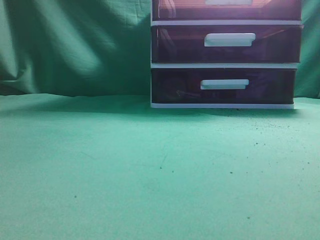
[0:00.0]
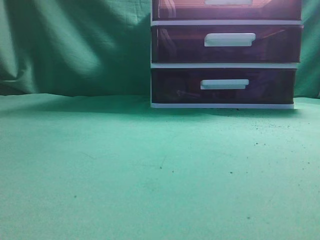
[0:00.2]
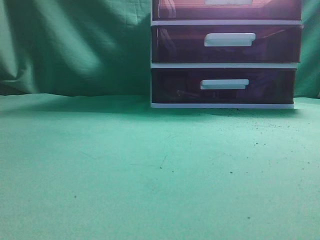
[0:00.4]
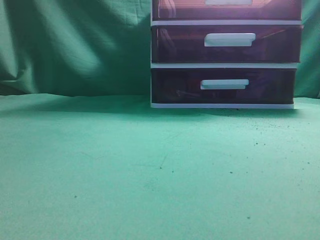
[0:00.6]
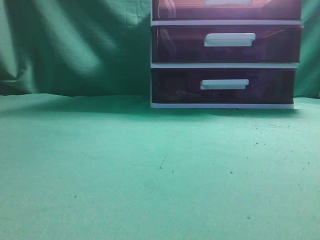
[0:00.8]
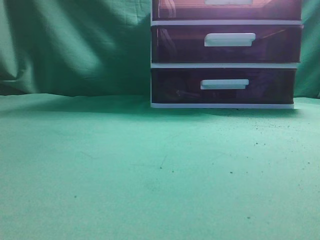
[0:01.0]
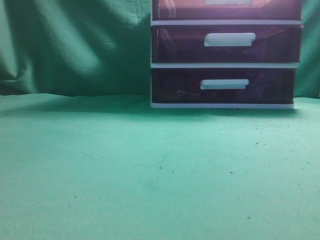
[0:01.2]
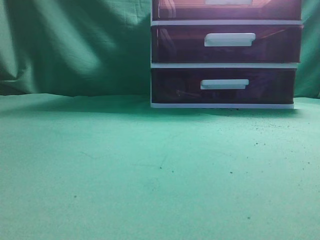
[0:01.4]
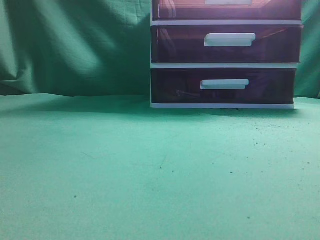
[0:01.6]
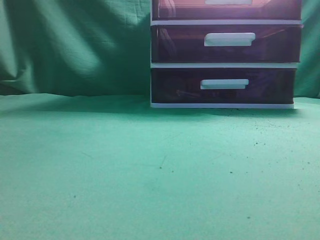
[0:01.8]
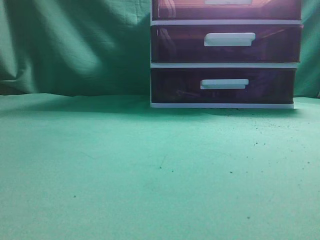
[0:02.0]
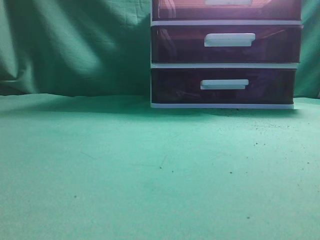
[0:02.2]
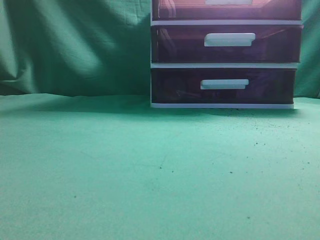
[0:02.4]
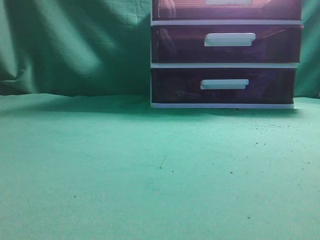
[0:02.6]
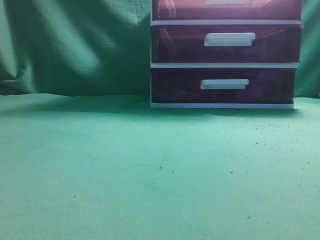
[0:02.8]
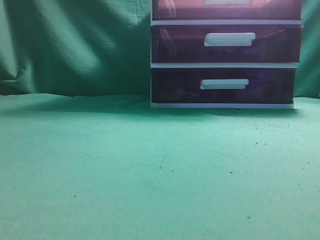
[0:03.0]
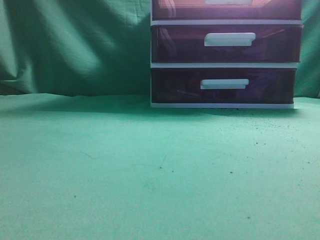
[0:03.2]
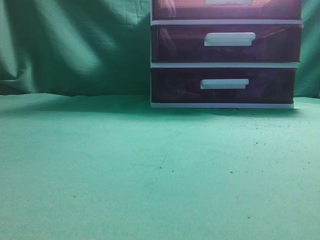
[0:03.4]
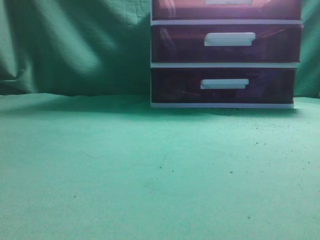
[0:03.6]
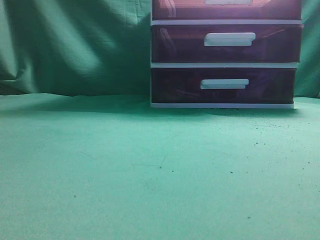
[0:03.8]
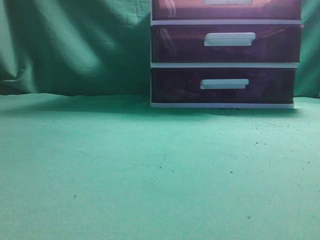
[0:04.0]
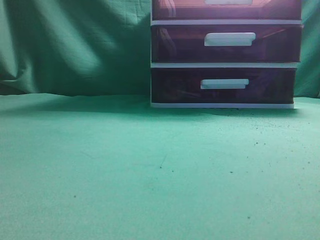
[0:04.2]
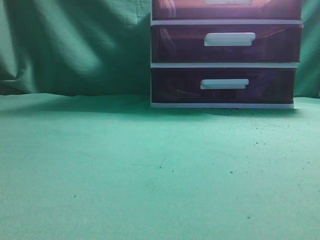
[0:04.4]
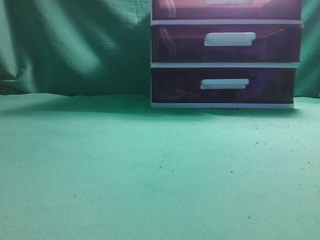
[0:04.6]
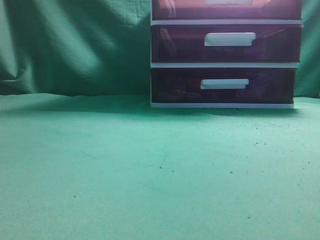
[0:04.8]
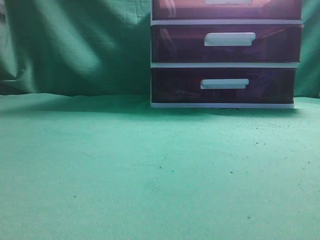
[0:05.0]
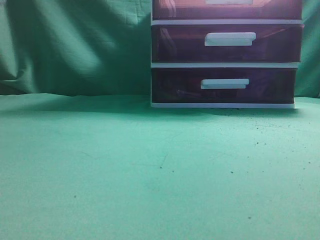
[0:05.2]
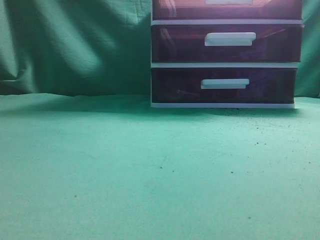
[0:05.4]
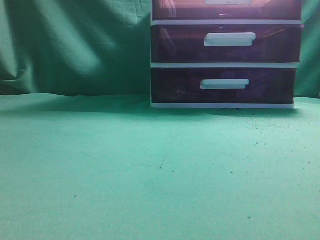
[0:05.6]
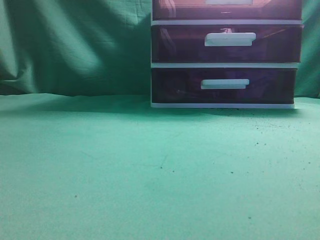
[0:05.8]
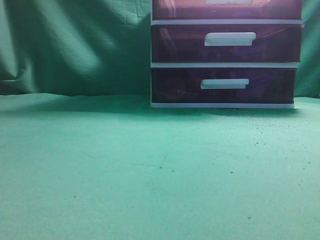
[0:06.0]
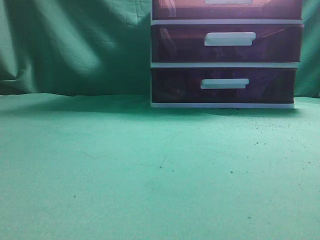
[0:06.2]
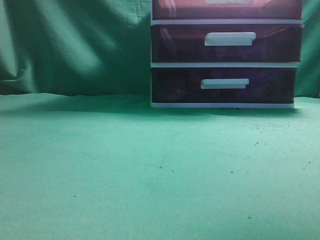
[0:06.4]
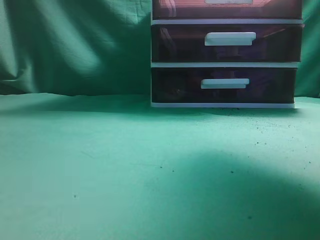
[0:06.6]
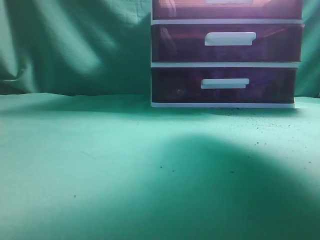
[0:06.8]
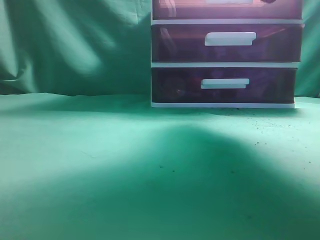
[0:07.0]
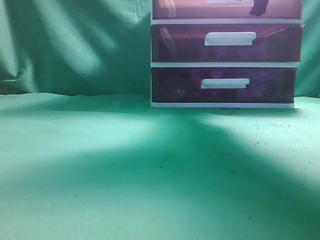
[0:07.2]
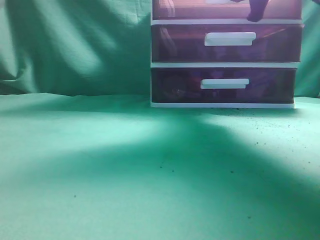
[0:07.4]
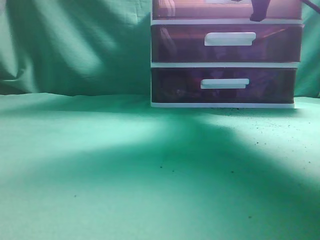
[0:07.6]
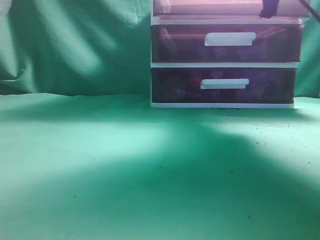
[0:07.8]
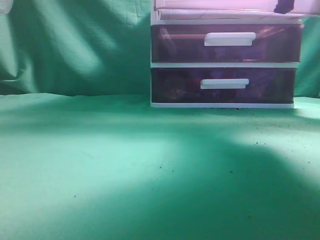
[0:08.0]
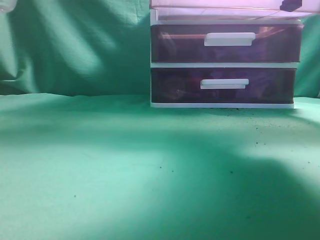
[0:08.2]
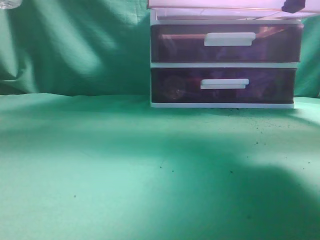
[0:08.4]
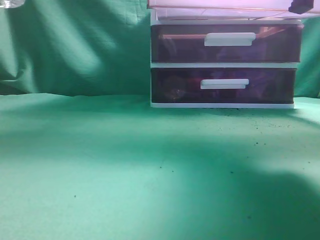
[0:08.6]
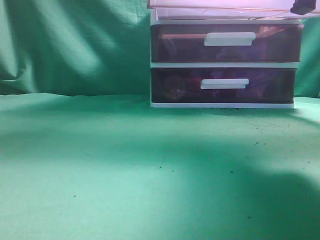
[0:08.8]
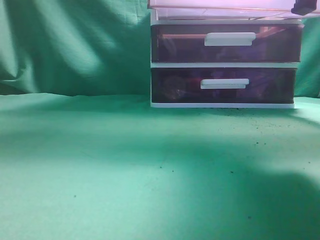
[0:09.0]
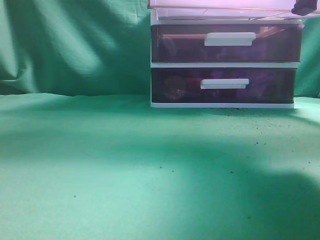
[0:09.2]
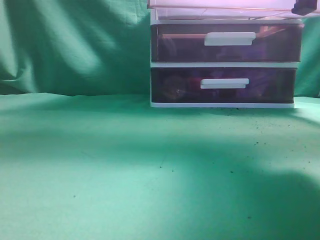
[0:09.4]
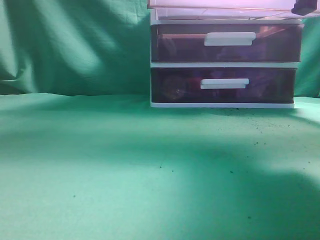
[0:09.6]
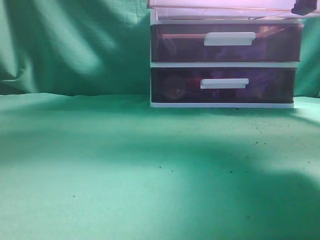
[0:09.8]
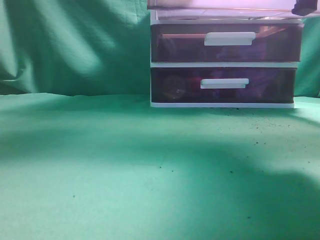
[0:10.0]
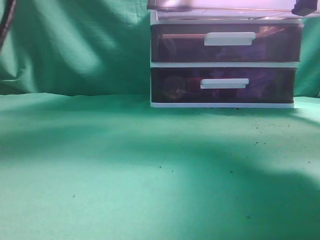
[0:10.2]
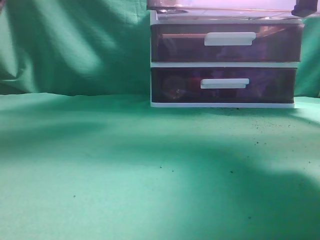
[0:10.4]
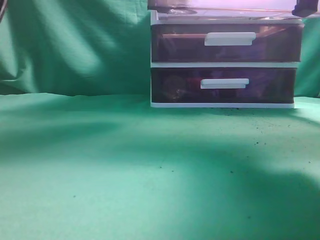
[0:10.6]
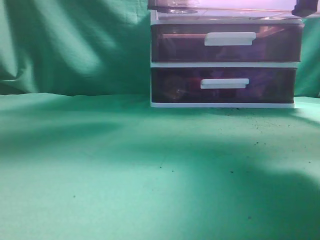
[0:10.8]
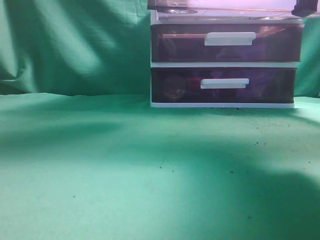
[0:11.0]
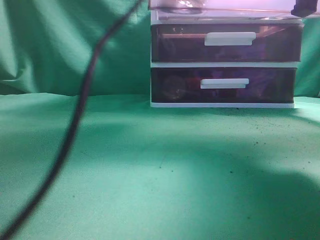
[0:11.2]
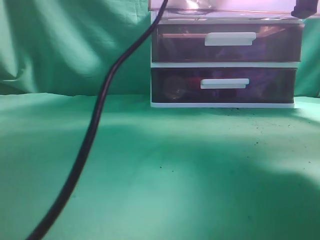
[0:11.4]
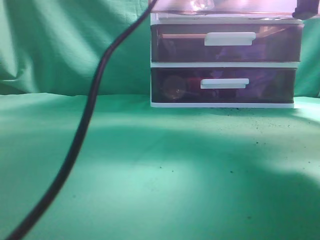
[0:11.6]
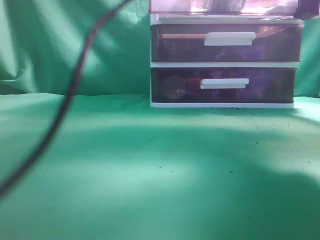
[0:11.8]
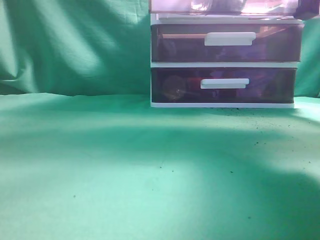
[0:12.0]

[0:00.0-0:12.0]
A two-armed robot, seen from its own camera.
Task of the whole recording: place the water bottle into the drawer.
Step, 0:00.0 to 0:09.2: Open the drawer.
0:06.0 to 0:07.6: The right gripper moves forward, about 30 cm.
0:07.6 to 0:09.0: The right gripper goes roughly 15 cm backward, while the left gripper shifts about 5 cm upward.
0:09.0 to 0:10.4: The left gripper heads forward and to the right, covering approximately 25 cm.
0:10.4 to 0:12.0: The left gripper is displaced to the right by approximately 5 cm, and opens.

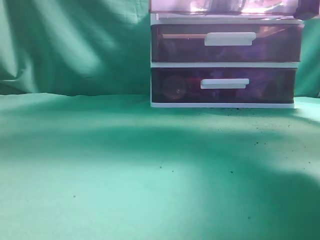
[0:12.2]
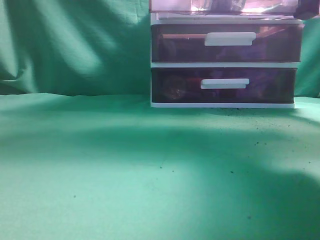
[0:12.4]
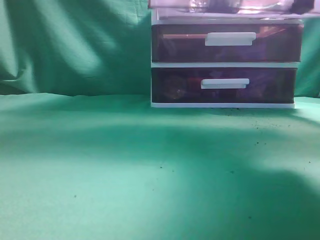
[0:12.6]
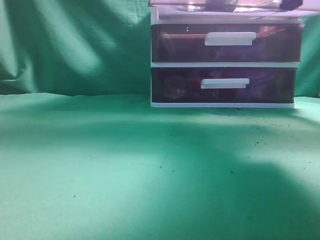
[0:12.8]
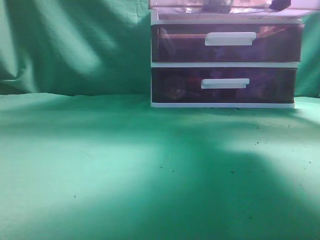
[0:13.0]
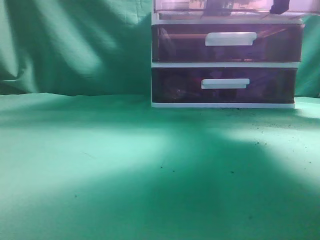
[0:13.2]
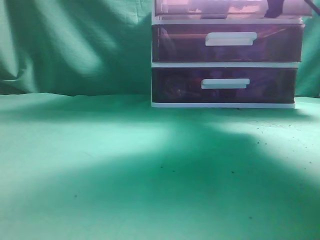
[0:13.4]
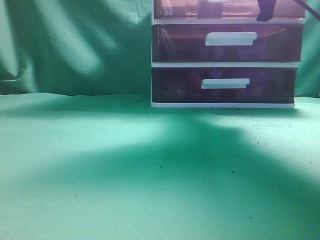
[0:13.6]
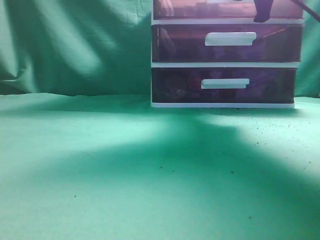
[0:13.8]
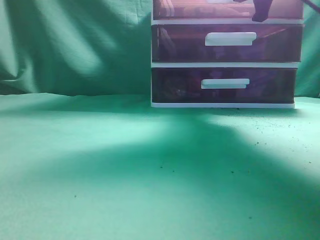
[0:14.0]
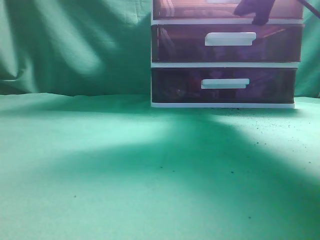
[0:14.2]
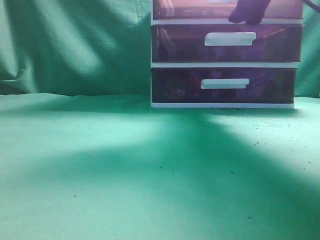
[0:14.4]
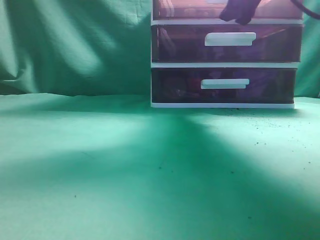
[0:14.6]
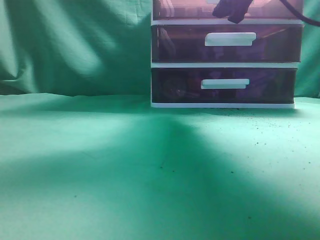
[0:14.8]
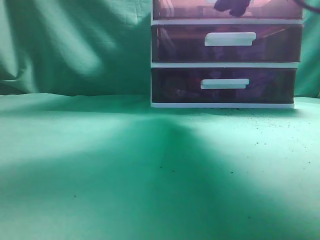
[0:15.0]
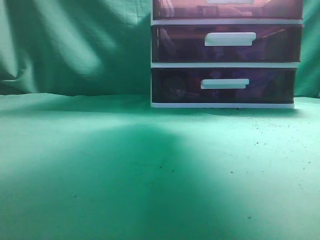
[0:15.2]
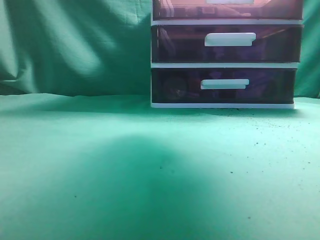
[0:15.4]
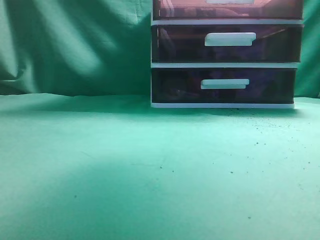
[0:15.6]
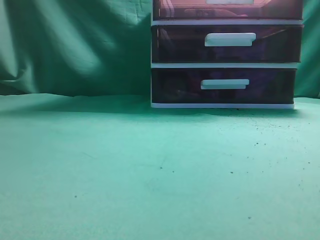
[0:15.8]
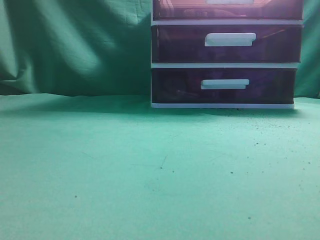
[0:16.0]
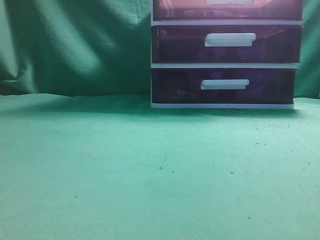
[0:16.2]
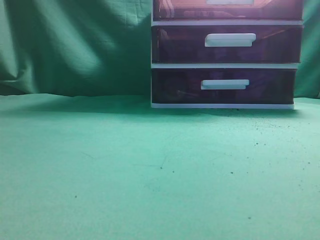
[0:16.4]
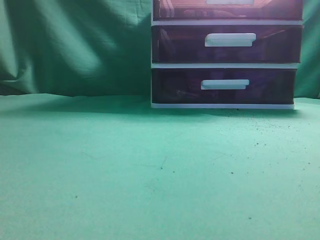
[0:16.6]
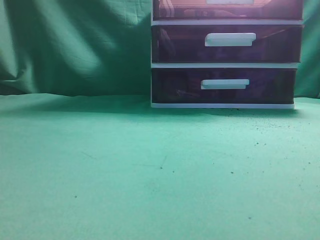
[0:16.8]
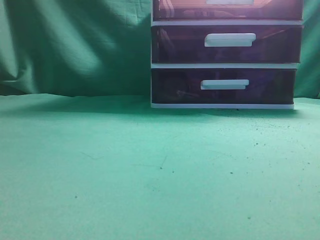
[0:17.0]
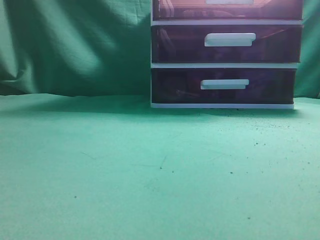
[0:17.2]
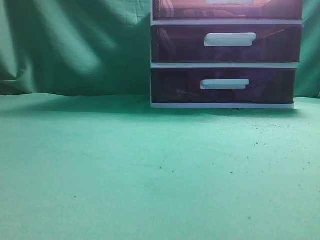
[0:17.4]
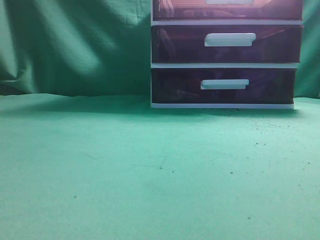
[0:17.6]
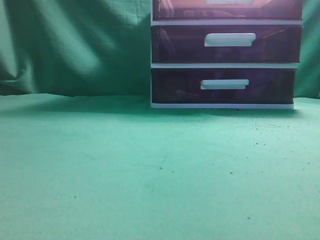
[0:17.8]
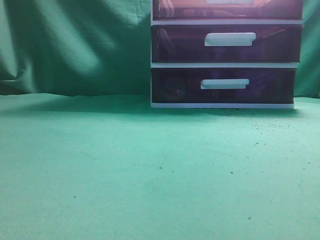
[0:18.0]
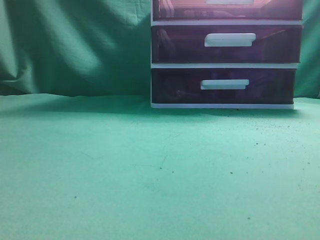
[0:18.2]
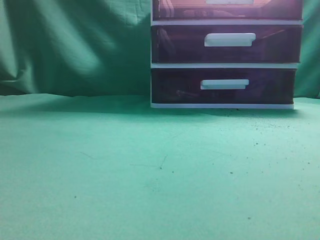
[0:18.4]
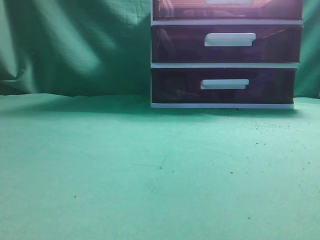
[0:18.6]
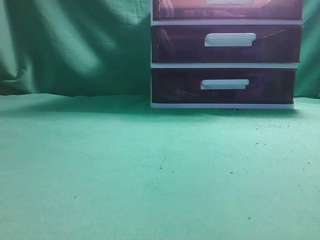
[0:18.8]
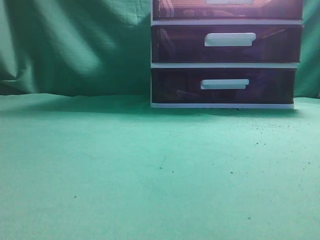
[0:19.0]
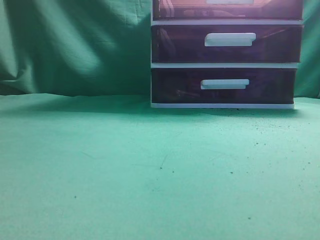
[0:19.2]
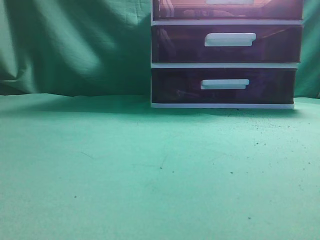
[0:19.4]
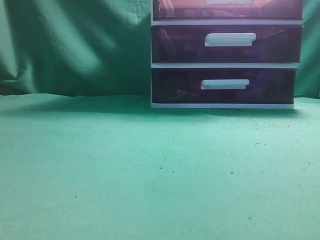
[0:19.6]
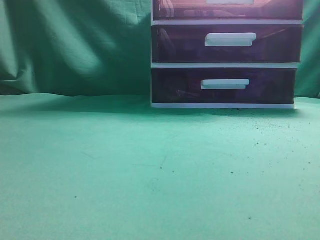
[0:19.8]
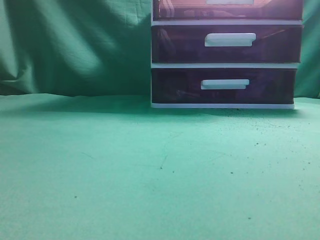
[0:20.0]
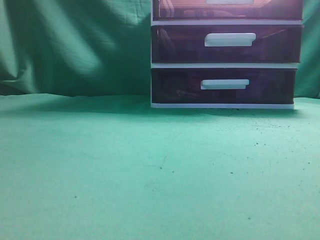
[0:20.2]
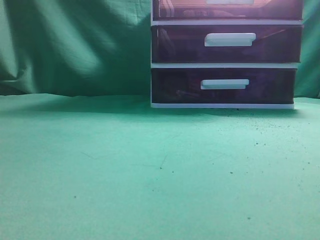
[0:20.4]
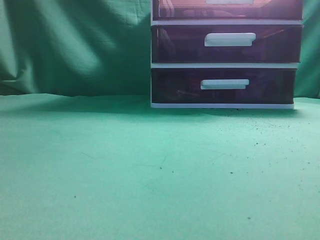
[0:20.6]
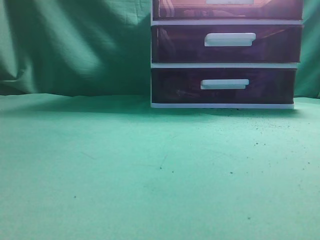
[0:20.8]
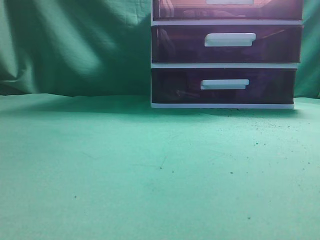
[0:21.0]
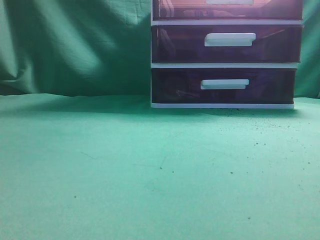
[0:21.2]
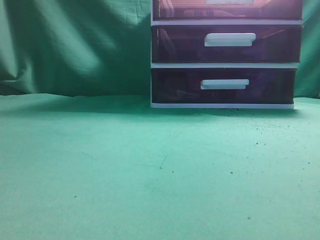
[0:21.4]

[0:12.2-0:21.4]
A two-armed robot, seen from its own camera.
Task of the whole recording: place the water bottle into the drawer.
Step, 0:12.4 to 0:15.4: Close the drawer.
0:12.2 to 0:13.8: The left gripper is displaced backward and to the left by roughly 35 cm, and closes. Meanwhile the right gripper is displaced forward by roughly 15 cm.
0:13.8 to 0:15.2: The right gripper opens.
0:15.2 to 0:16.8: The left gripper goes approximately 15 cm backward, to the left and downward. Meanwhile the right gripper moves backward, some 35 cm, and closes its fingers.
